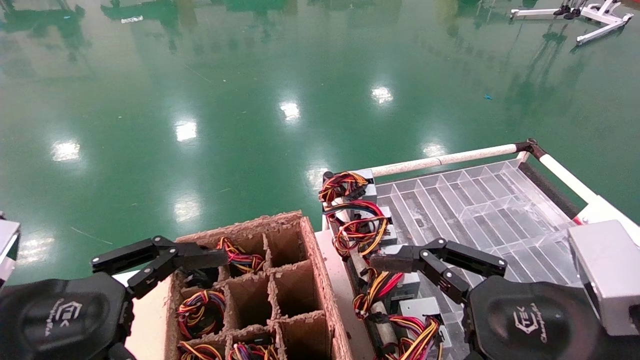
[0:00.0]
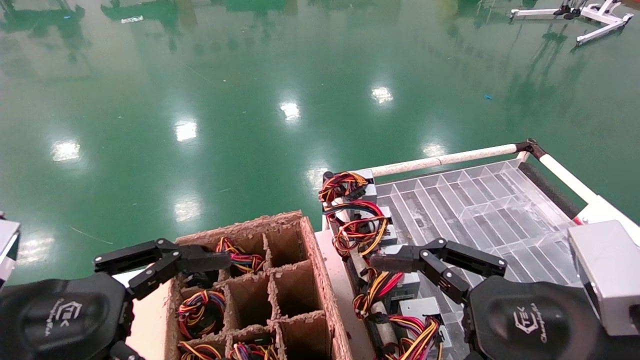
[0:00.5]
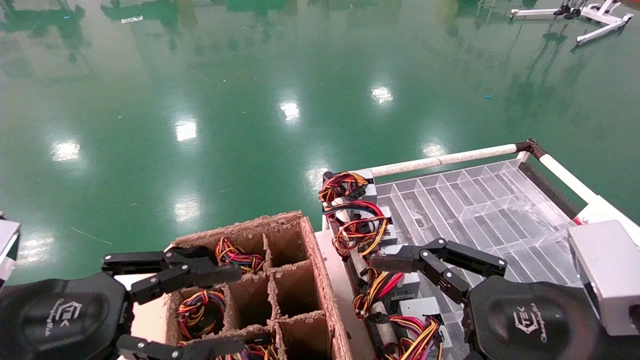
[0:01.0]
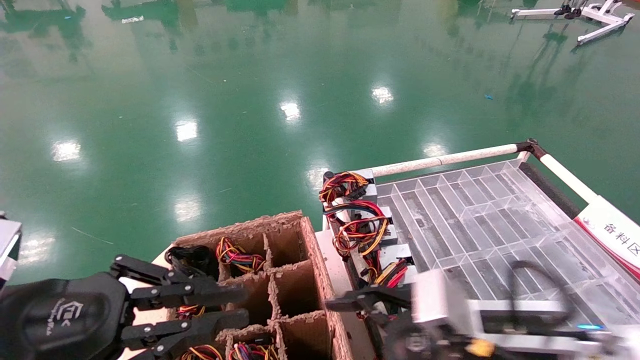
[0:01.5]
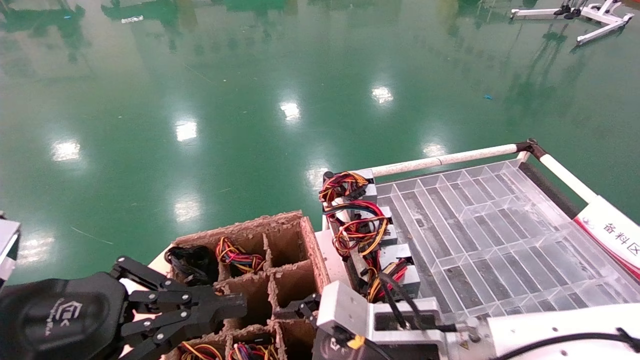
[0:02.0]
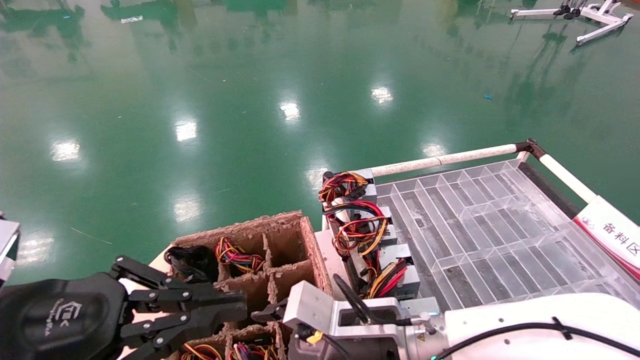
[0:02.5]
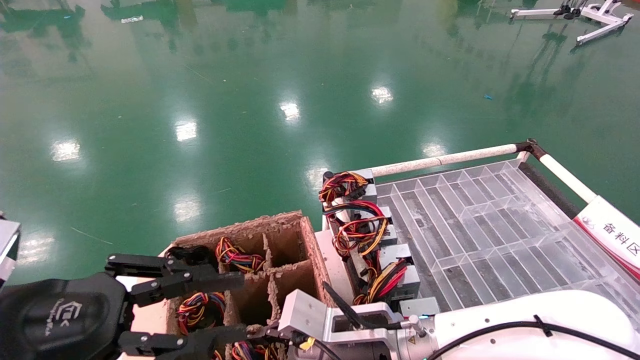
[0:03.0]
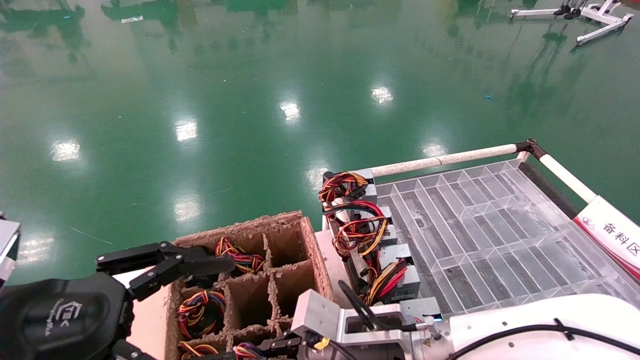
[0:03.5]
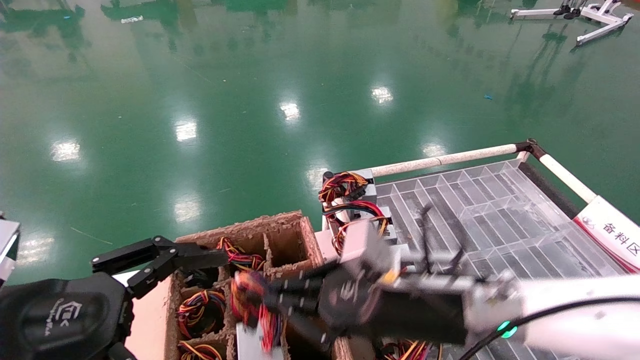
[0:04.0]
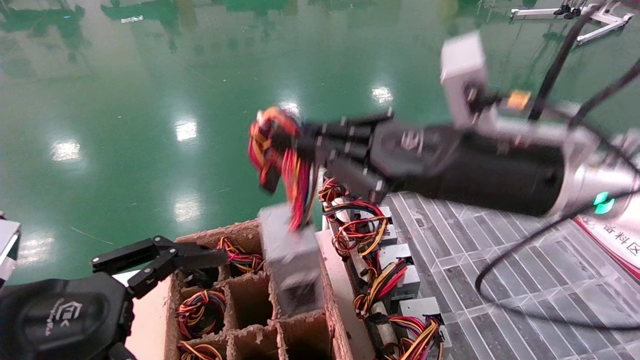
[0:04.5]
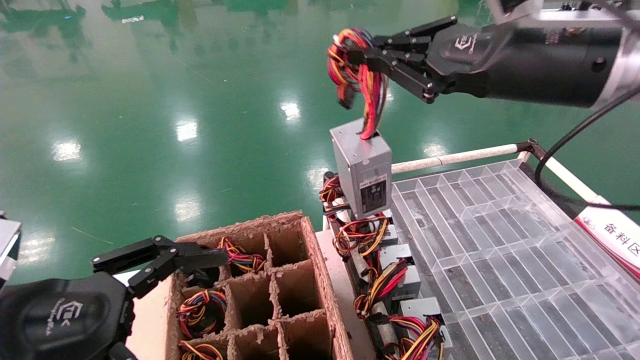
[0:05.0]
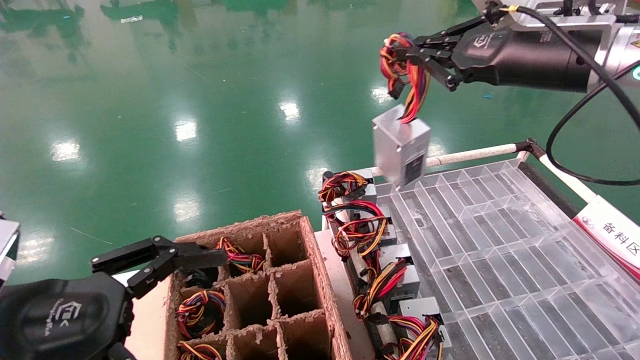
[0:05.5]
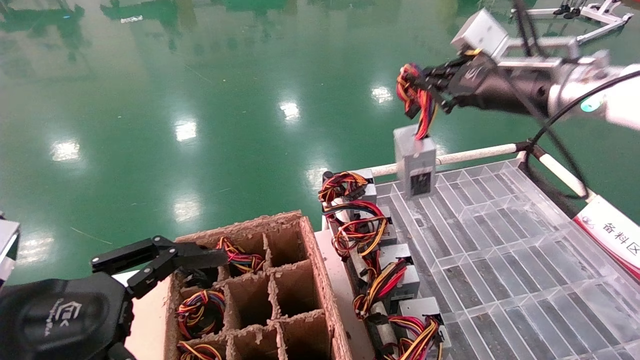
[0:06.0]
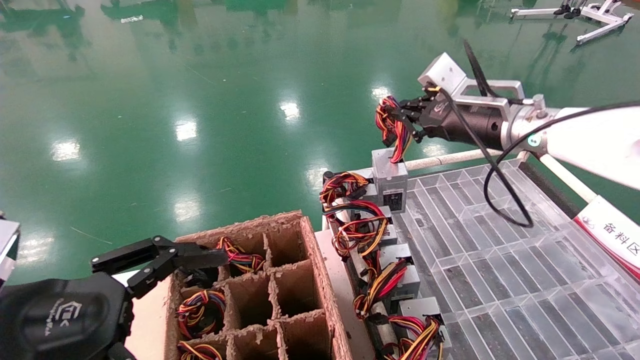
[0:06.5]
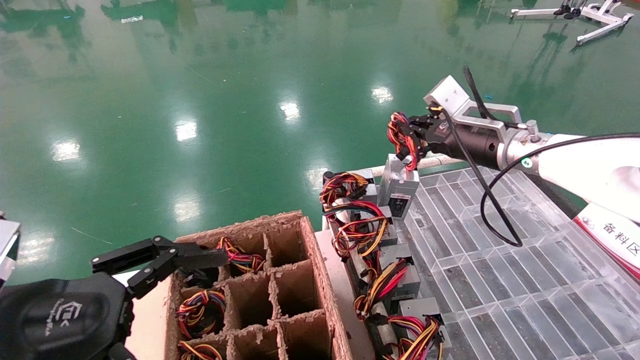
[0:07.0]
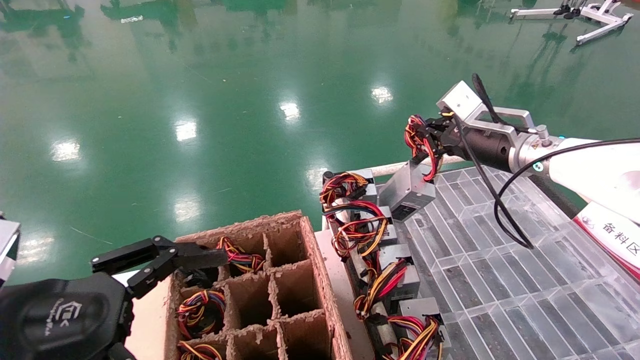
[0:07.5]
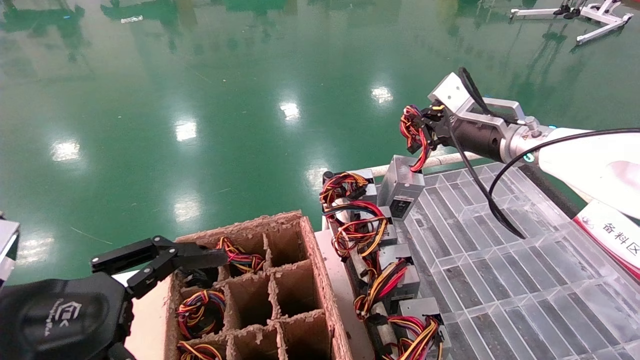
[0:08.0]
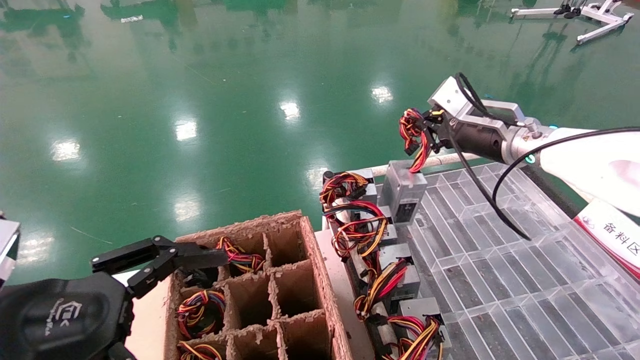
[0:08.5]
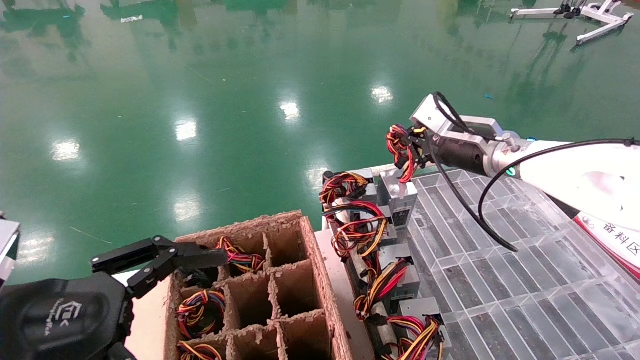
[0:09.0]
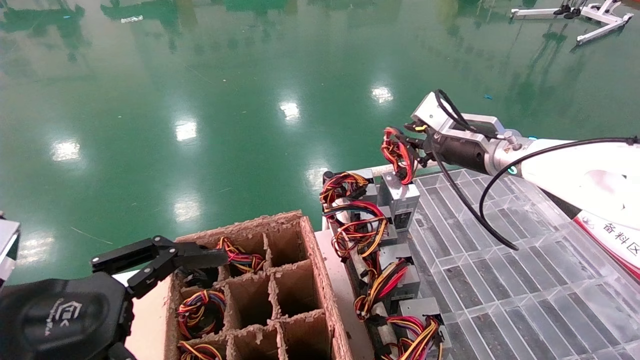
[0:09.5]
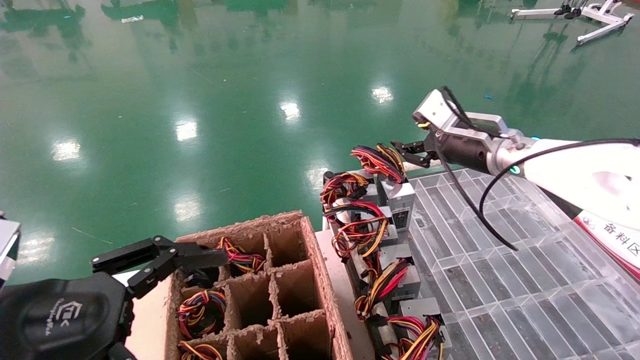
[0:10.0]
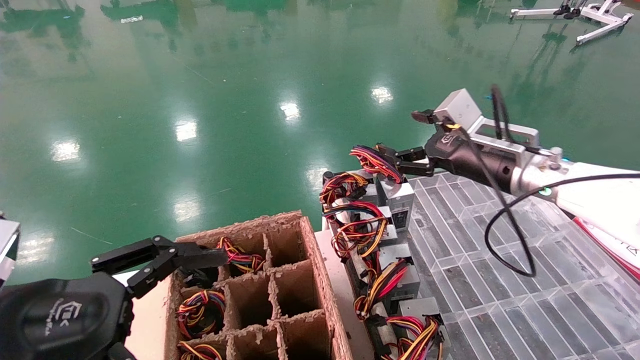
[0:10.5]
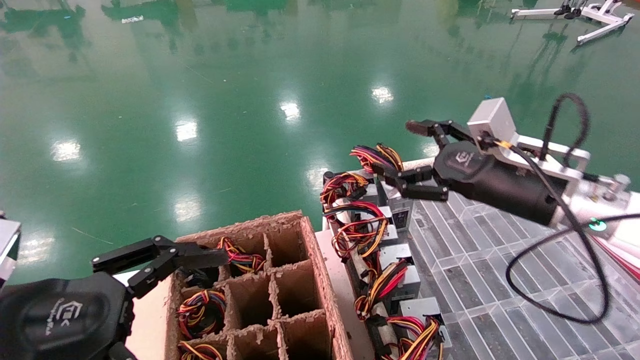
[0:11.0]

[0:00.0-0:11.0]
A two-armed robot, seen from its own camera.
Step, 0:01.0 to 0:03.5: Grab and lift the power supply from the large box.
Step, 0:04.0 to 0:09.0: Place the power supply on the operating table.
0:00.0 to 0:02.0: The right gripper shifts approximately 20 cm to the left, forward and downward. Meanwhile the left gripper closes its fingers.
0:02.0 to 0:03.5: The right gripper closes its fingers. Meanwhile the left gripper opens.
0:03.5 to 0:05.5: The right gripper goes approximately 35 cm upward and to the right.
0:05.5 to 0:07.5: The right gripper travels downward and forward by some 15 cm.
0:07.5 to 0:09.0: The grippers move only a little.
0:09.0 to 0:11.0: The right gripper travels backward by approximately 10 cm, and opens up.
